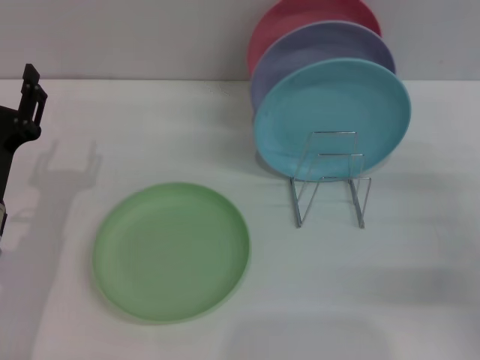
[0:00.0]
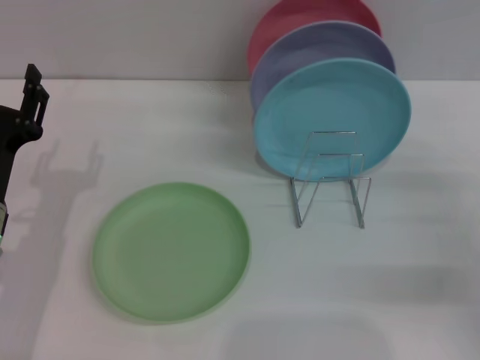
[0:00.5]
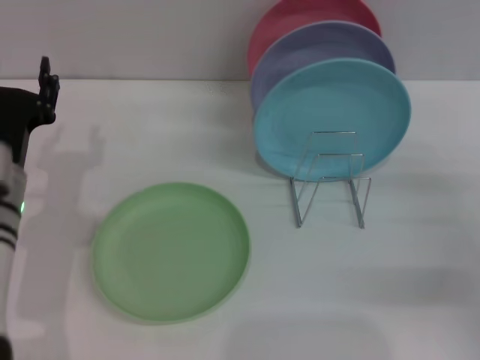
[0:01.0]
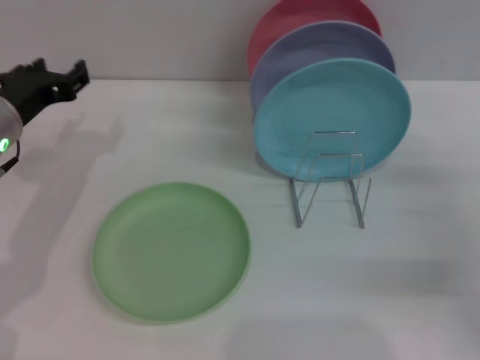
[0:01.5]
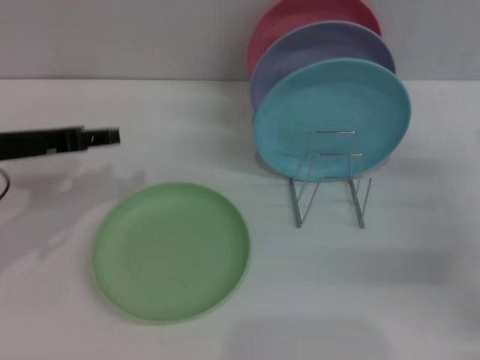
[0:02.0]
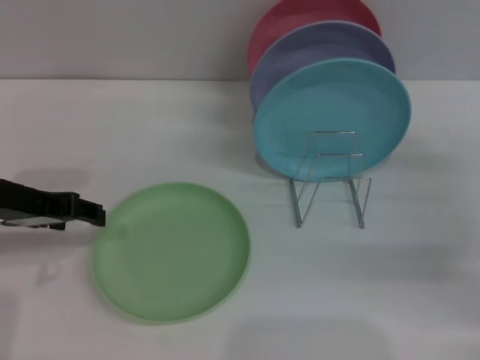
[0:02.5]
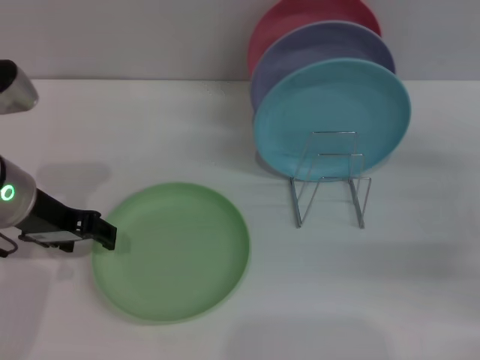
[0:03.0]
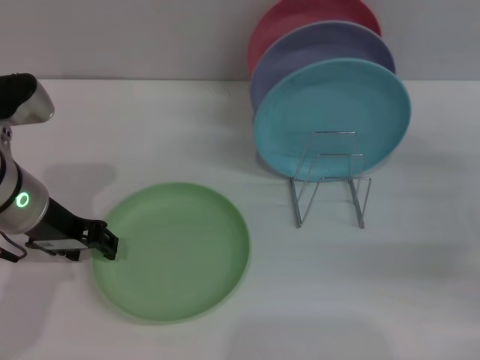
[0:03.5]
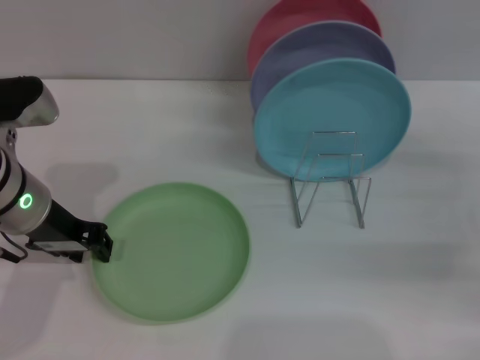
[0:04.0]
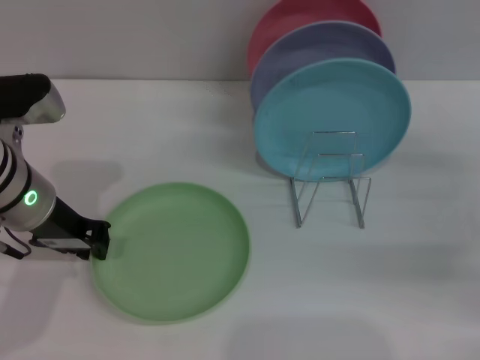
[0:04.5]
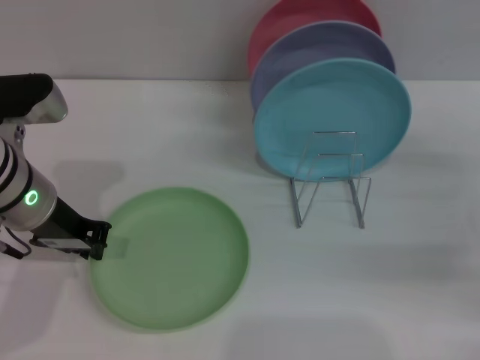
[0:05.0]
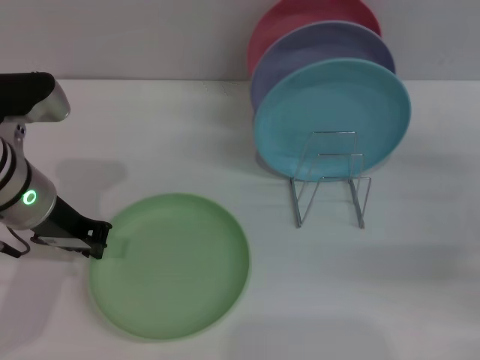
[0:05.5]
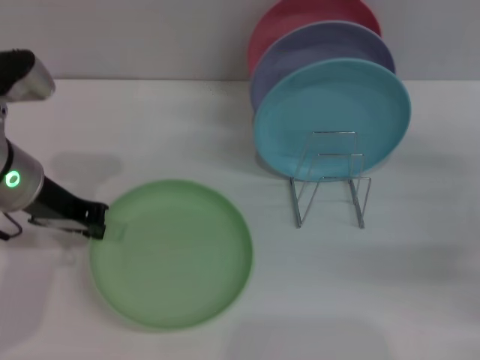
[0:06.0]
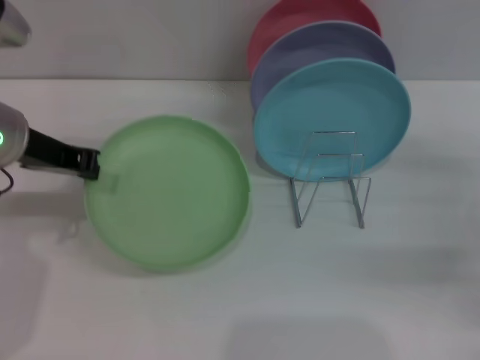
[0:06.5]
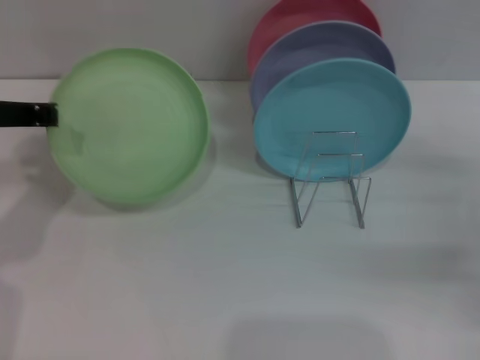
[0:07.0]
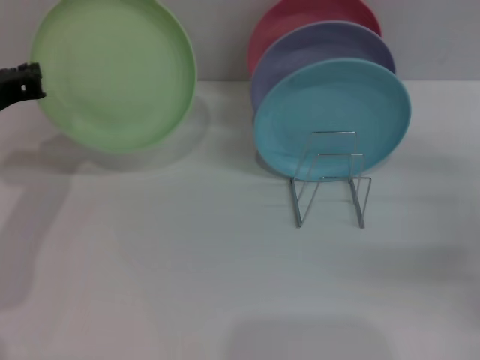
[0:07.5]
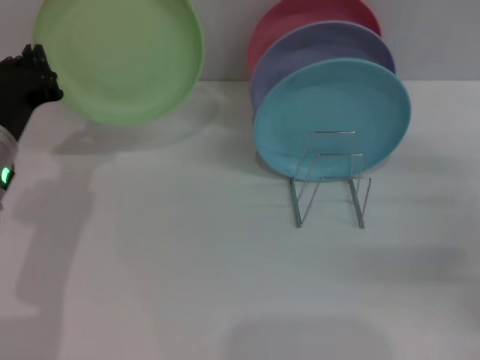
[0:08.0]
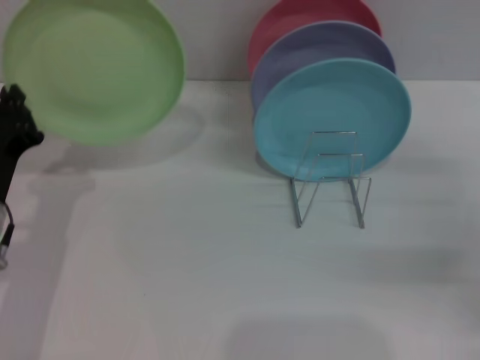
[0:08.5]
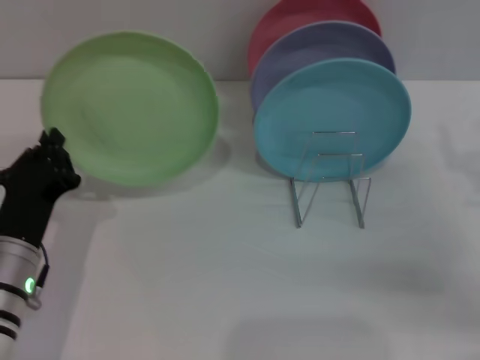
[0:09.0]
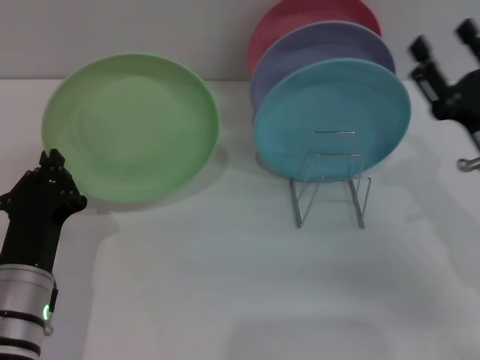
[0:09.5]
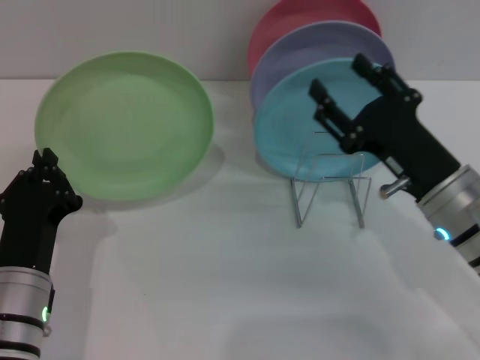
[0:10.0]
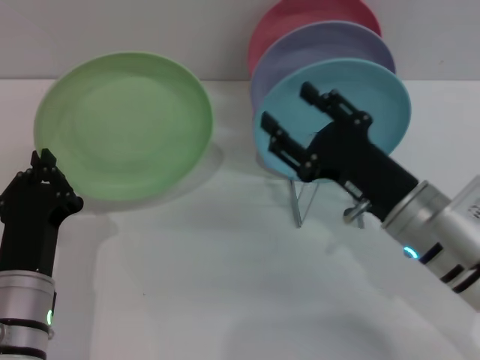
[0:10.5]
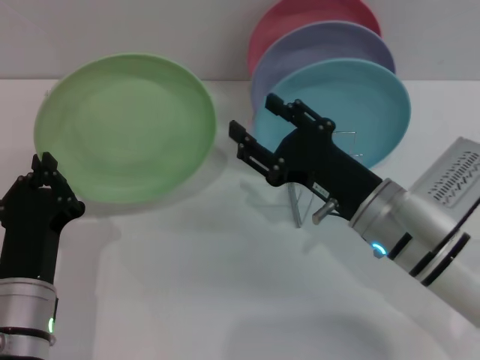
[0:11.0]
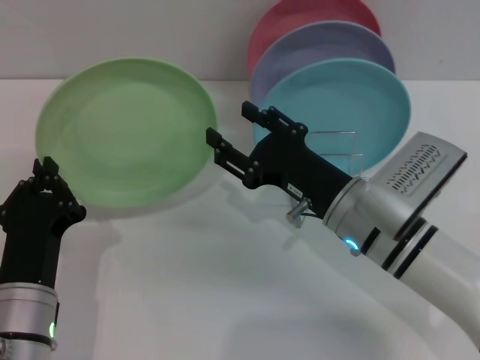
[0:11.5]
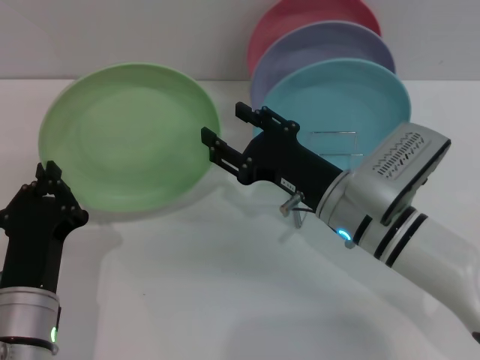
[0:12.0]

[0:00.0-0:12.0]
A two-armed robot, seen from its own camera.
Task of the whole recording: Grip the plate with one hand, pass it to the other, then set it on the shelf.
Step, 0:00.0 to 0:06.5: Pick up the plate with the left gripper.
0:00.0 to 0:02.0: The left gripper travels upward and forward by approximately 10 cm.
0:02.0 to 0:04.0: The left gripper shifts about 5 cm to the right.
0:04.0 to 0:06.0: The left gripper closes up.
0:08.0 to 0:10.0: The right gripper moves to the left, about 15 cm; the left gripper shifts some 15 cm backward and downward.
0:10.0 to 0:12.0: The right gripper is displaced to the left by some 10 cm.

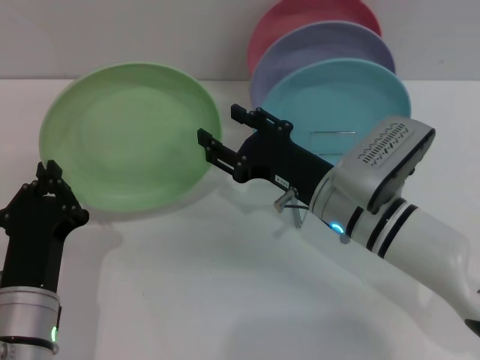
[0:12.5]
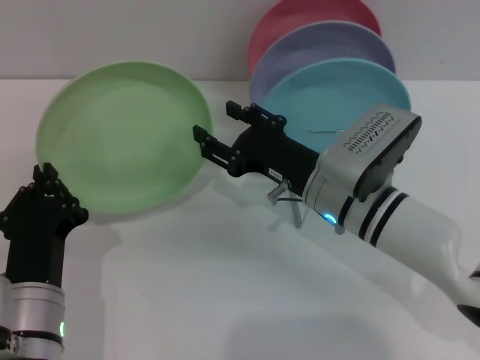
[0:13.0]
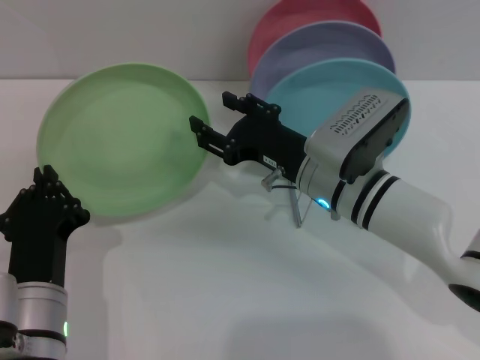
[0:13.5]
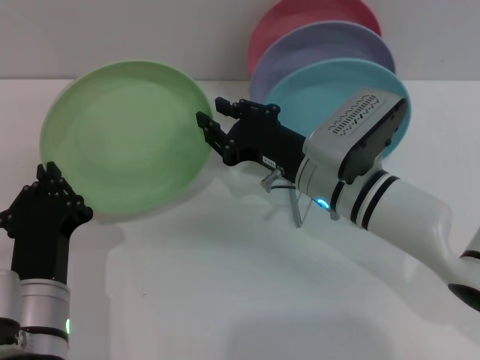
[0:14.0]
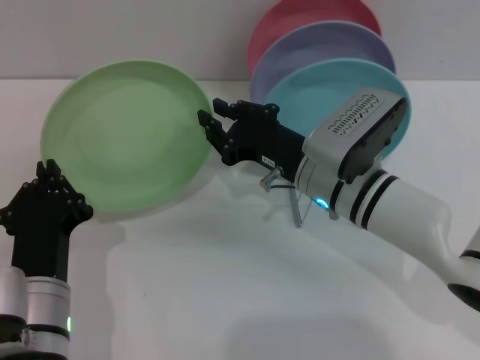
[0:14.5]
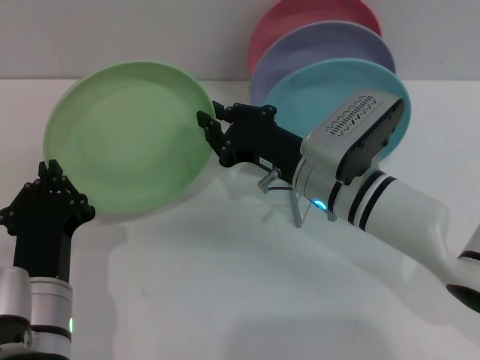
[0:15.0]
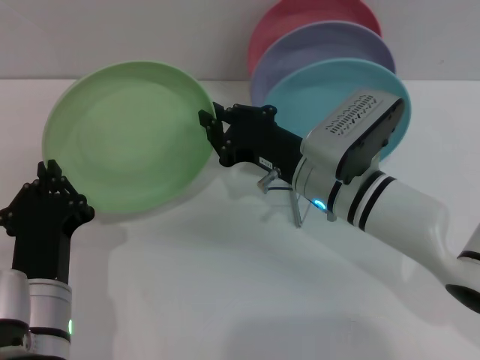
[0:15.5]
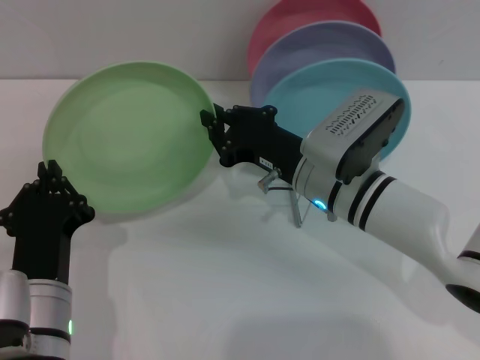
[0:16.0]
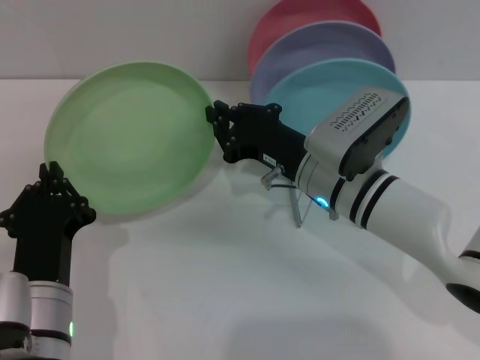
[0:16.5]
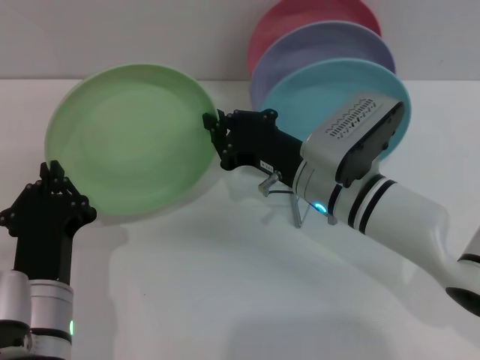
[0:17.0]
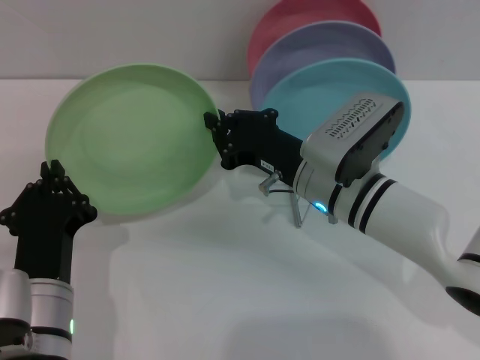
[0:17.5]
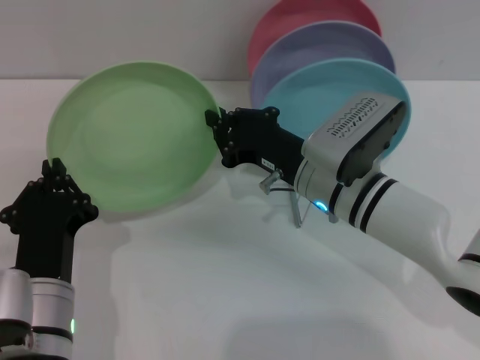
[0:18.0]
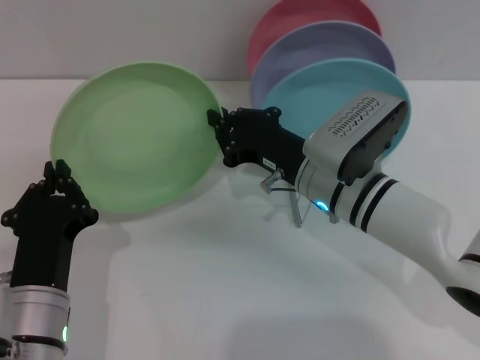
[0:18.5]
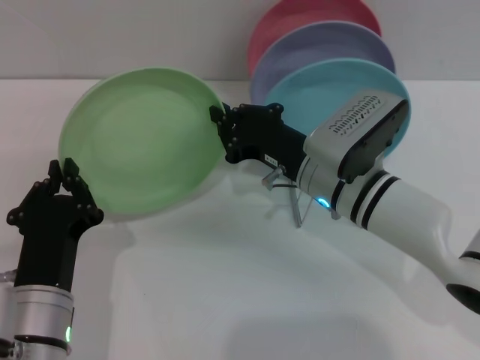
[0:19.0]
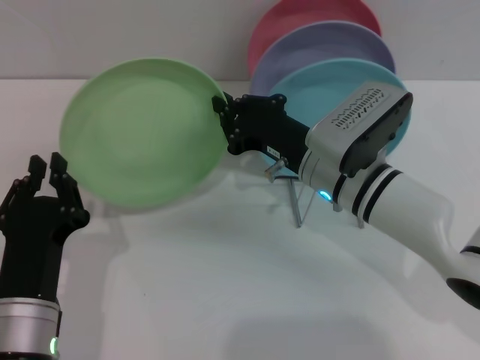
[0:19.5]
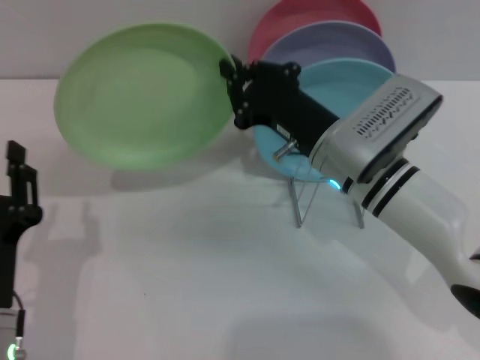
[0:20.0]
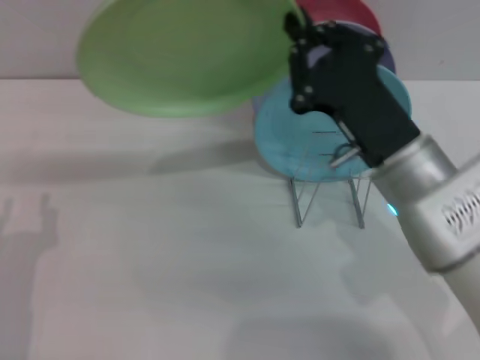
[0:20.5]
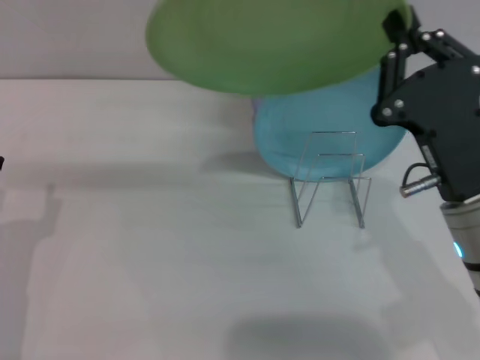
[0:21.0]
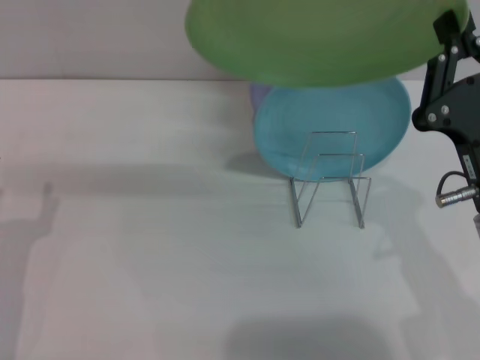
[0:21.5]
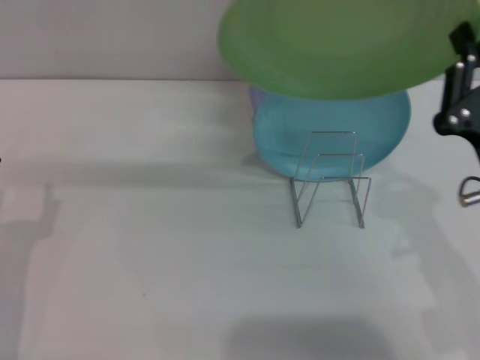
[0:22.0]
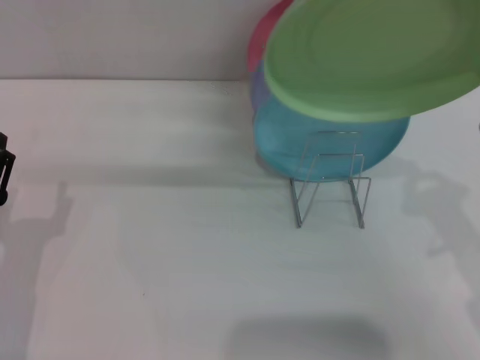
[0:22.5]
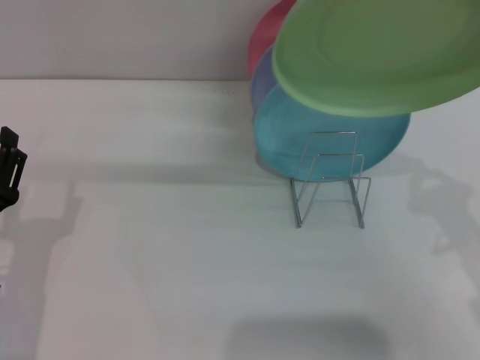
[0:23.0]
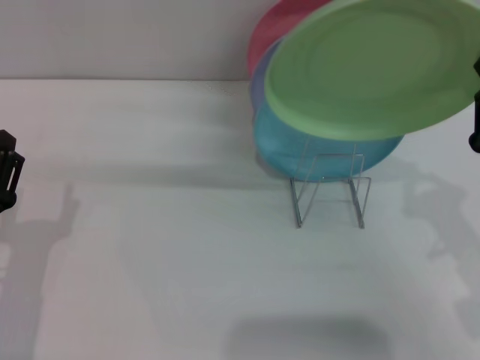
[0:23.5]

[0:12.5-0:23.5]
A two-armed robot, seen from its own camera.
Task of the whole recording: Grip the plate with one hand, pass it to the other, then set it on the shelf.
Step, 0:12.5 to 0:19.5: Pass the plate from the left gripper to the right gripper.
0:12.5 to 0:14.5: The right gripper closes its fingers.
0:14.5 to 0:18.0: Both grippers stay about where they are.
0:20.0 to 0:21.5: The left gripper shifts about 5 cm to the left, and opens up. Meanwhile the right gripper is displaced backward and to the right by about 15 cm.
0:21.5 to 0:23.5: The right gripper goes some 5 cm to the right.

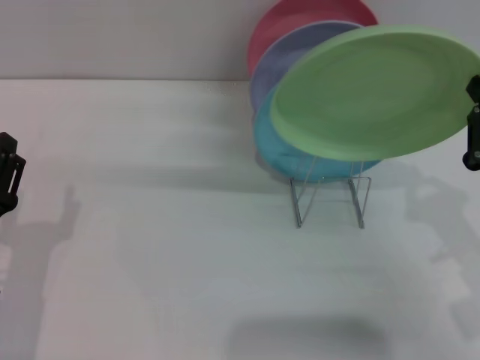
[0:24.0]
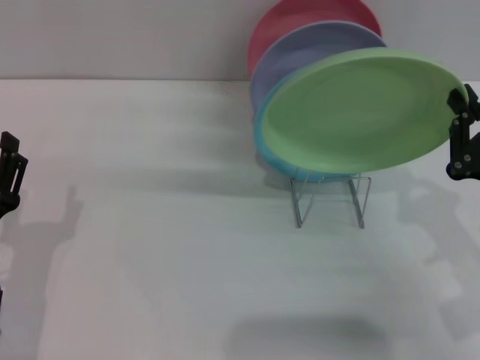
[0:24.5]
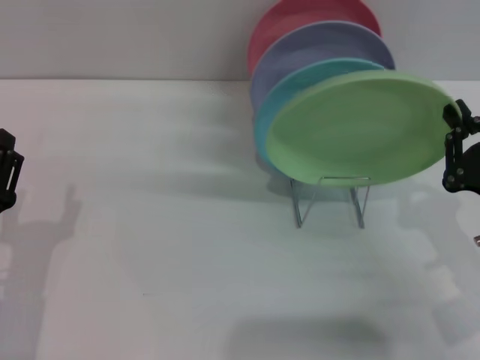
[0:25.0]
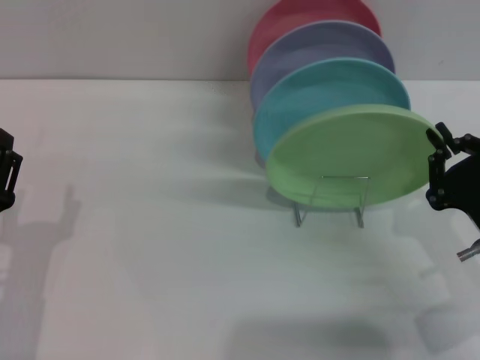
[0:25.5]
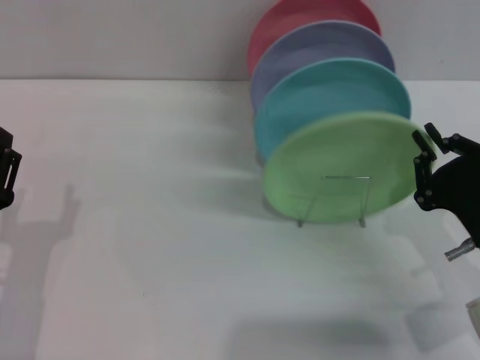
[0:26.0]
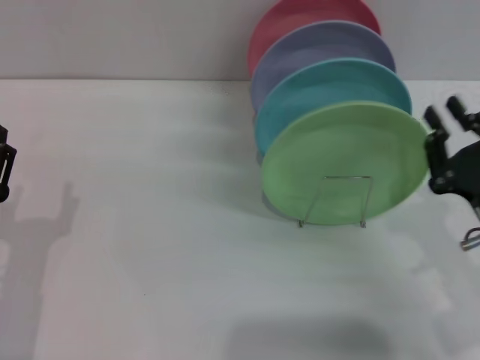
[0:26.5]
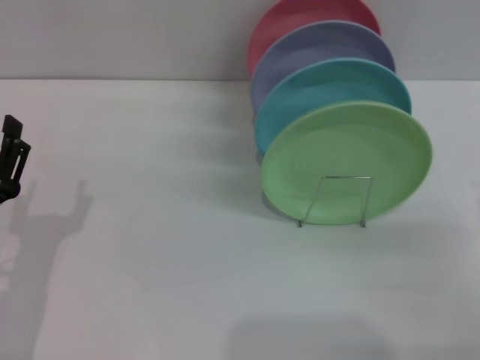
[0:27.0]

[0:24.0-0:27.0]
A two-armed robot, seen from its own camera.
Task of the whole recording: Grip the plate with one hand, pass it to the other, then set it on the shelf.
Step, 0:24.0 to 0:26.5: Place the plate on the shelf with the right gripper.
0:24.0 to 0:25.5: The grippers make only small movements.
0:25.5 to 0:27.0: The right gripper is displaced to the right by approximately 5 cm, and opens.
